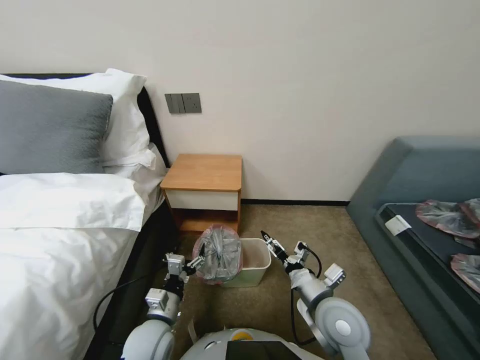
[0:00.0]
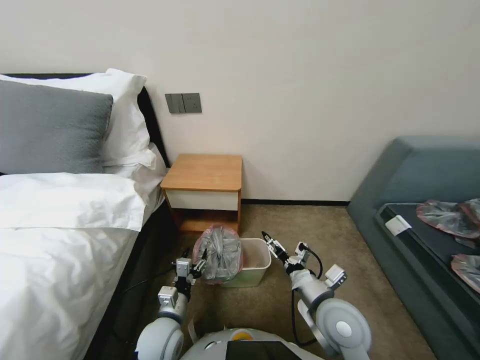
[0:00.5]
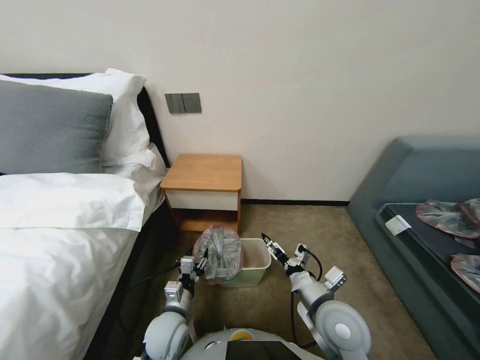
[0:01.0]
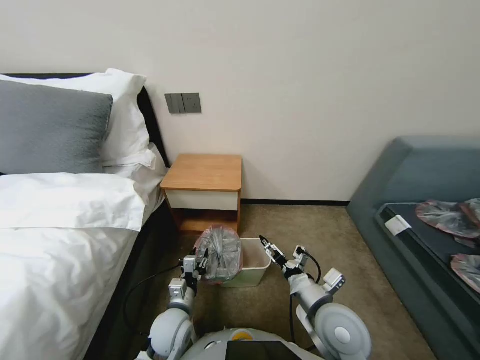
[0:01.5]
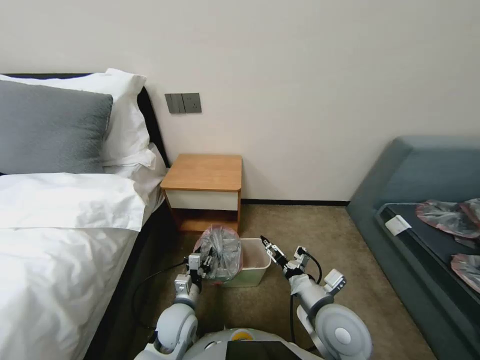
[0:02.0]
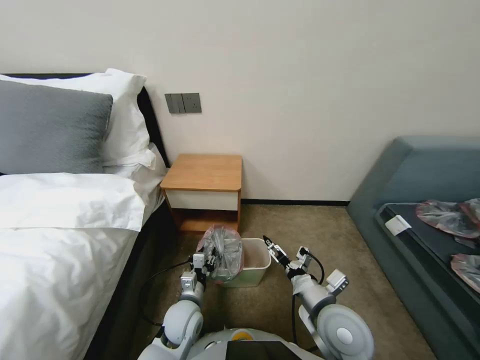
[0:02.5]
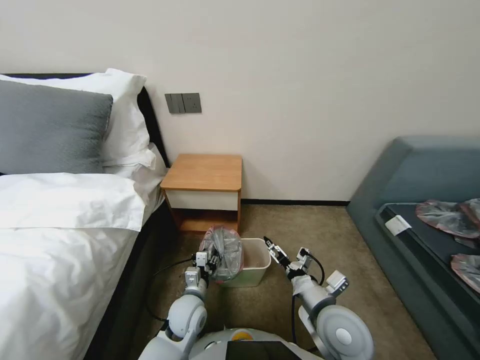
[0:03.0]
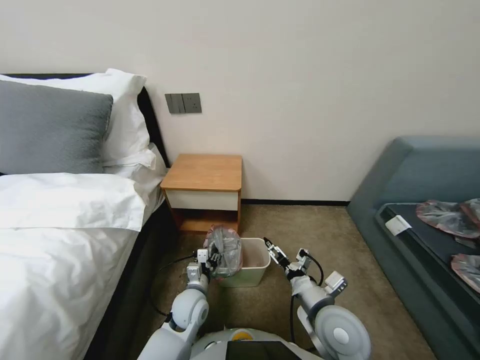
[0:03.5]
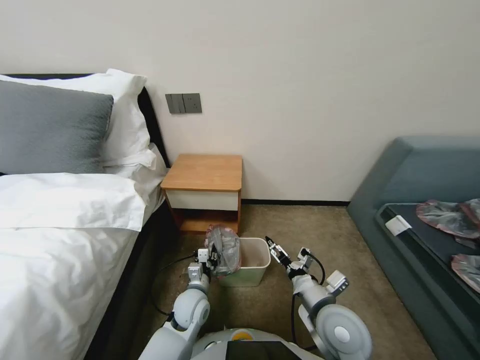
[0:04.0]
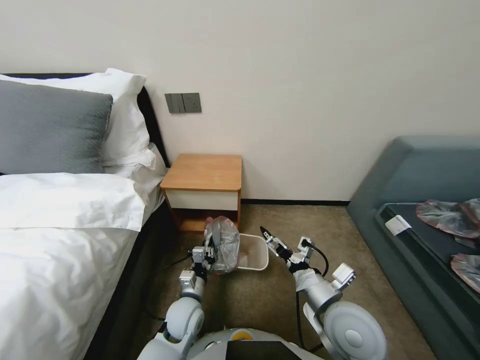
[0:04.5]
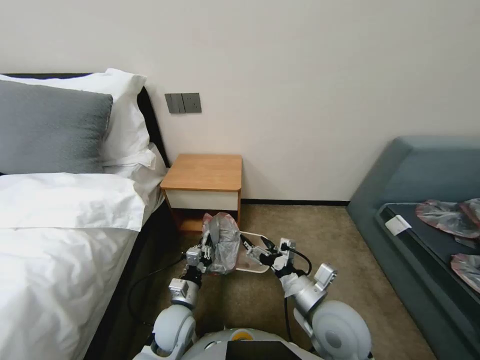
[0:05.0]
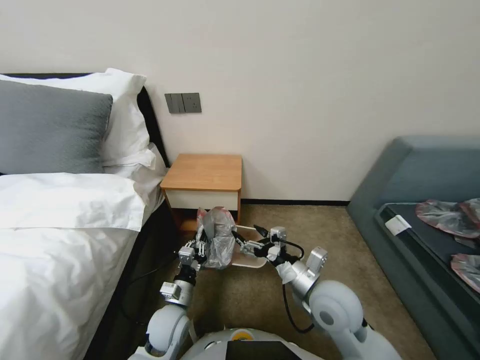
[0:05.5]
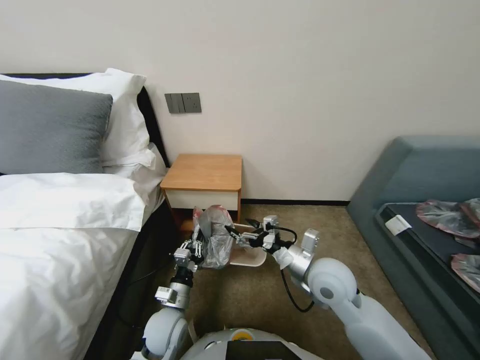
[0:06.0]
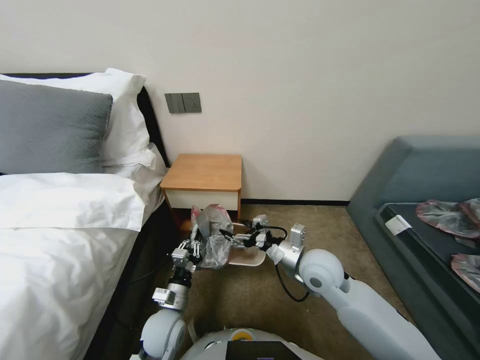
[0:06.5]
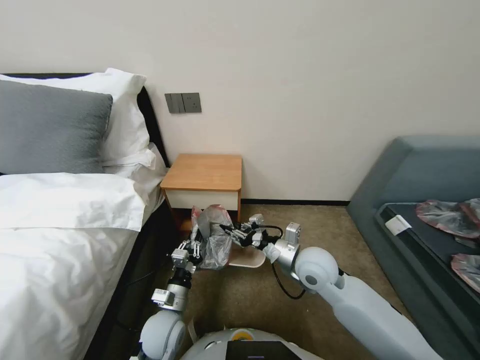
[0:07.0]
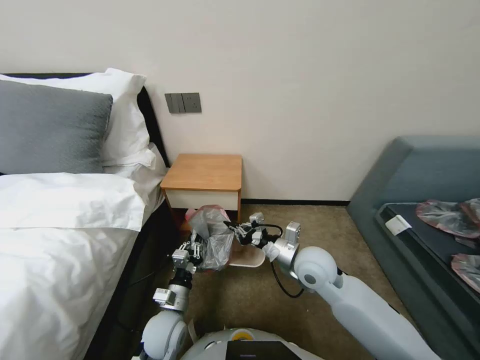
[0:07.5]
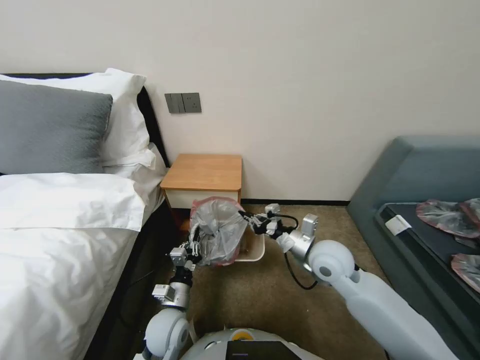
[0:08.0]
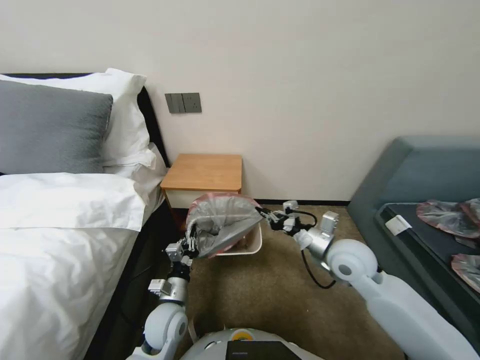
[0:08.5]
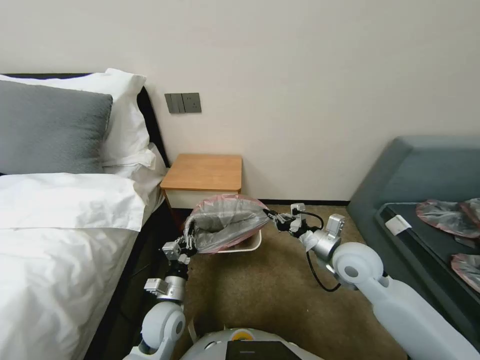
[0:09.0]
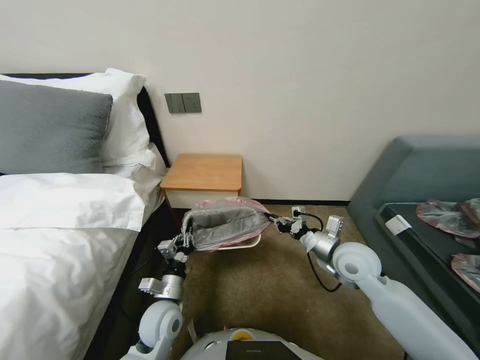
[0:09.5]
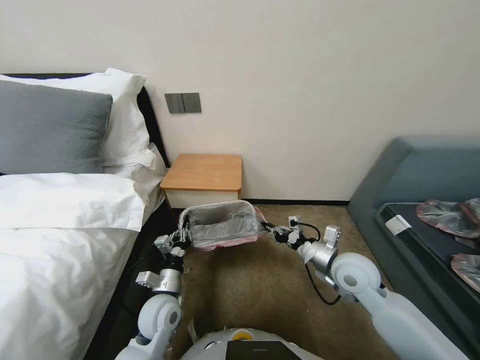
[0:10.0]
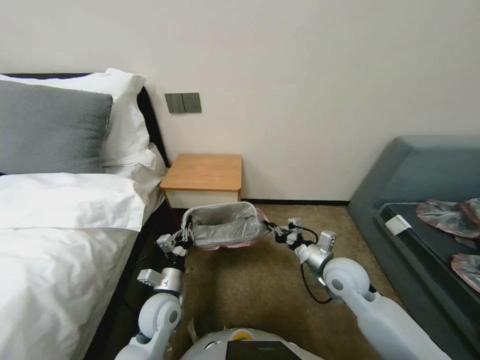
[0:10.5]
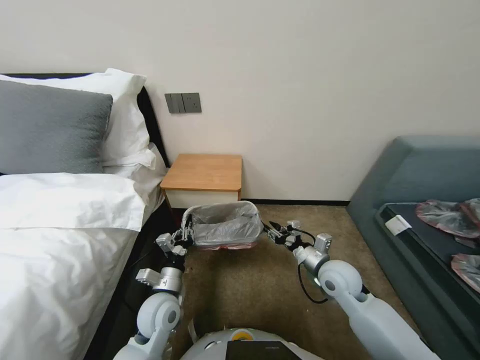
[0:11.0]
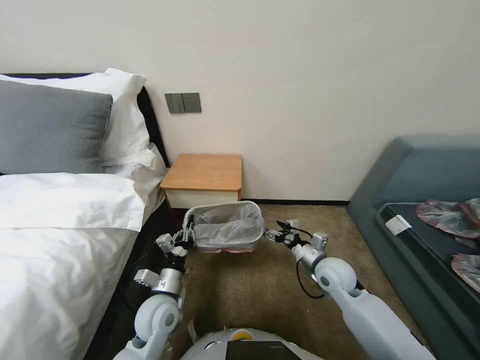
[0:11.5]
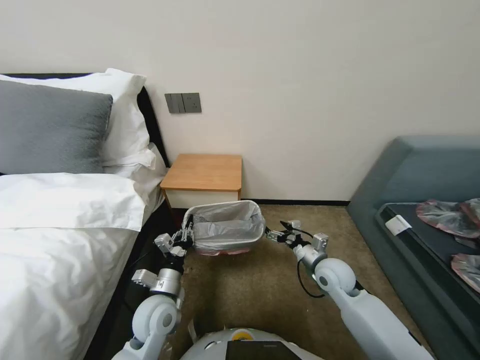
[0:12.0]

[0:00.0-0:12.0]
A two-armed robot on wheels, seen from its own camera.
Task of the whole recording: Pick up the garbage bag from the table and place it over the trash can.
0:00.0 to 0:02.0: The left gripper travels downward by approximately 5 cm, and closes.
0:02.0 to 0:04.0: The left gripper ends up about 5 cm from where it was.
0:04.0 to 0:06.0: The right gripper goes approximately 10 cm forward. The left gripper travels backward and to the left by about 5 cm.
0:06.0 to 0:08.0: The right gripper is displaced forward by roughly 5 cm, and closes up.
0:08.0 to 0:10.0: The right gripper goes approximately 5 cm to the right.
0:10.0 to 0:12.0: The right gripper travels downward by about 10 cm, and opens up.

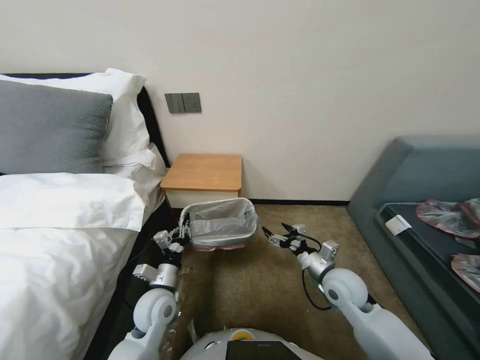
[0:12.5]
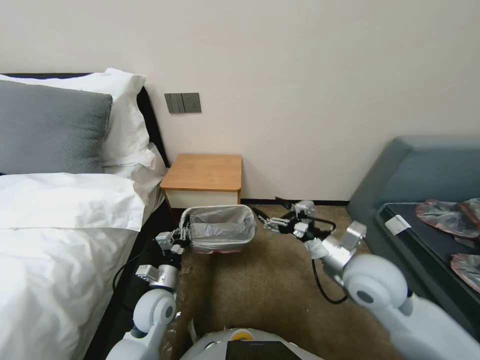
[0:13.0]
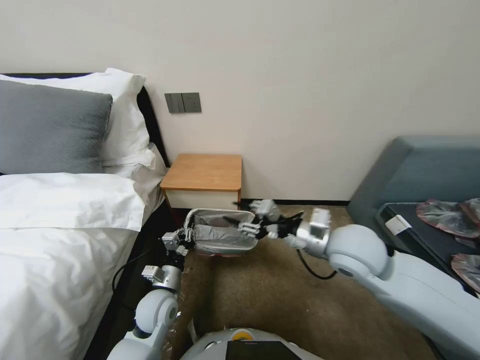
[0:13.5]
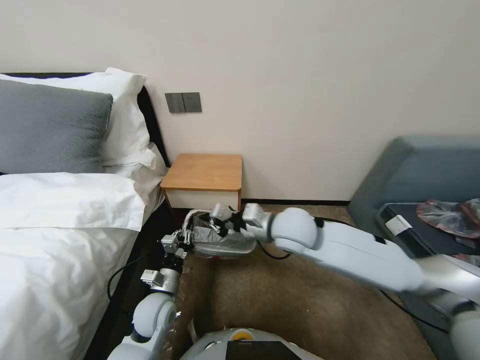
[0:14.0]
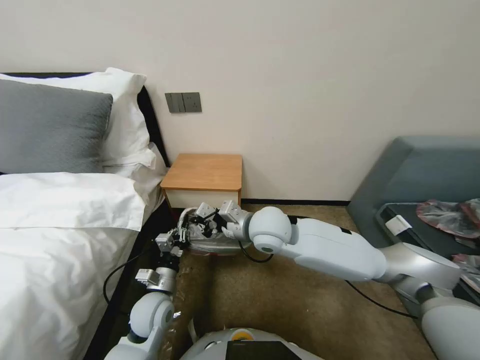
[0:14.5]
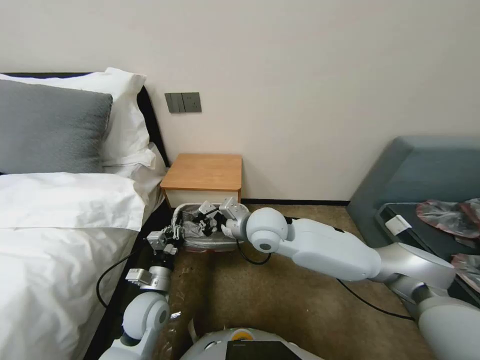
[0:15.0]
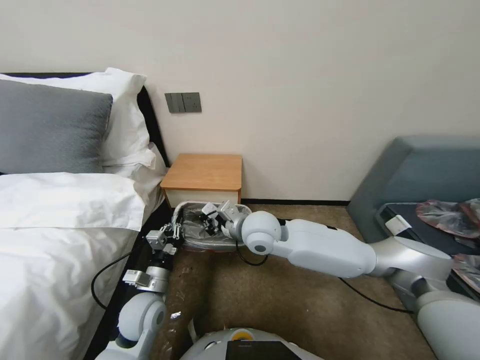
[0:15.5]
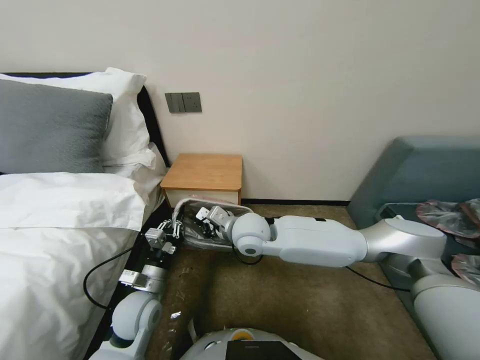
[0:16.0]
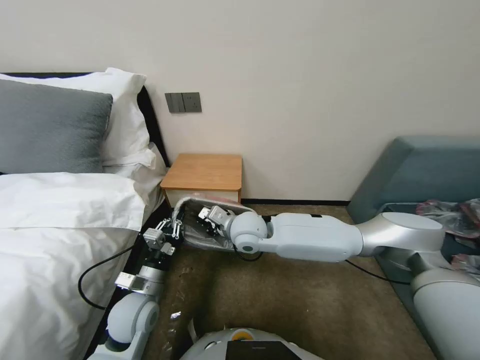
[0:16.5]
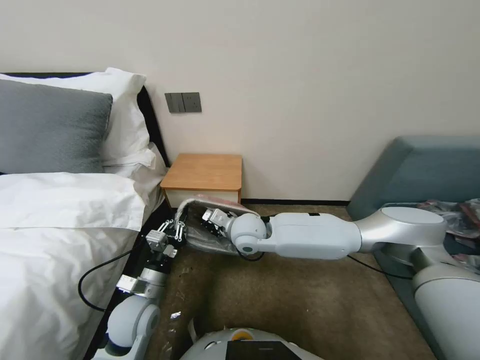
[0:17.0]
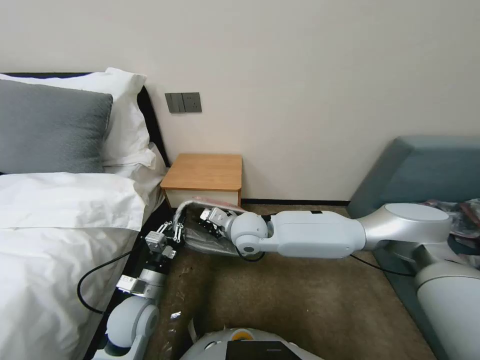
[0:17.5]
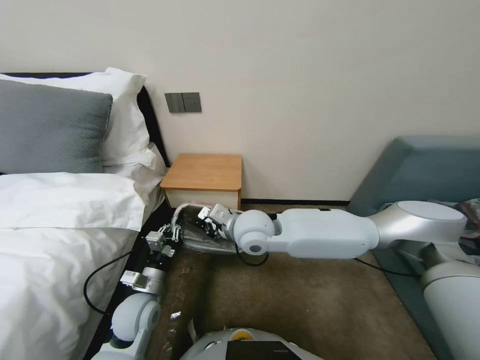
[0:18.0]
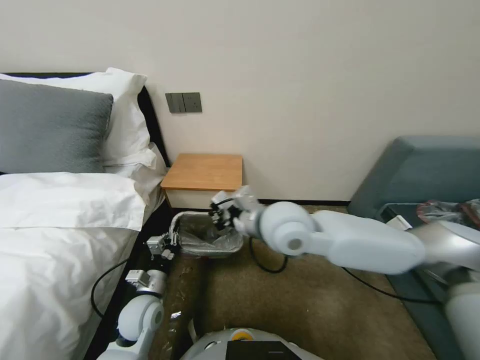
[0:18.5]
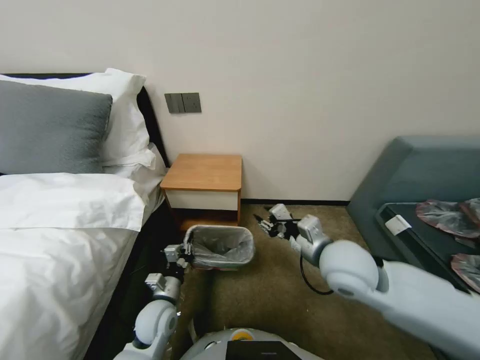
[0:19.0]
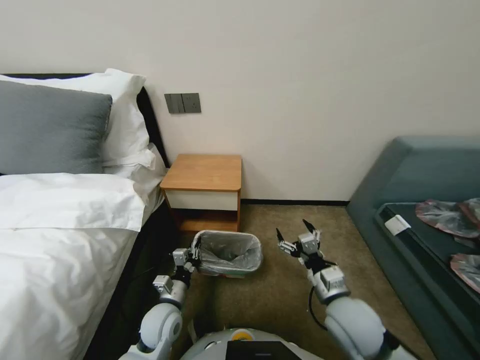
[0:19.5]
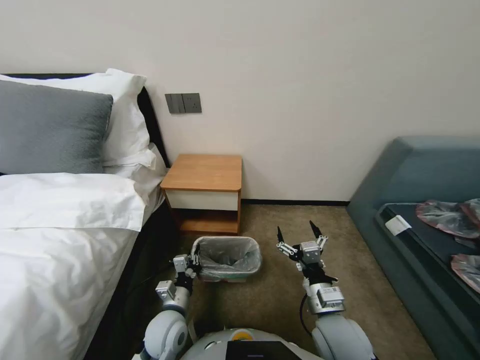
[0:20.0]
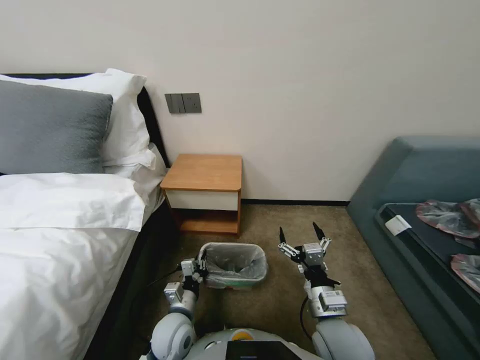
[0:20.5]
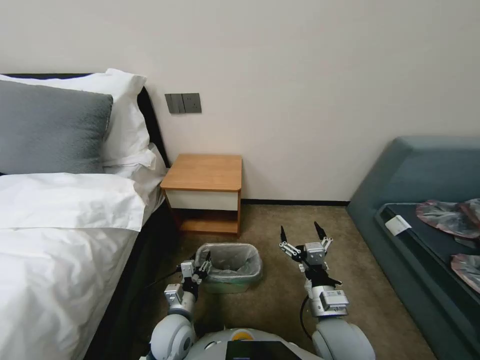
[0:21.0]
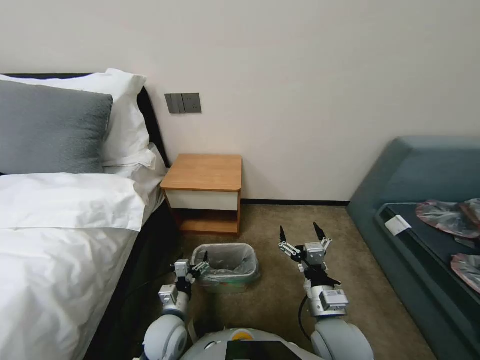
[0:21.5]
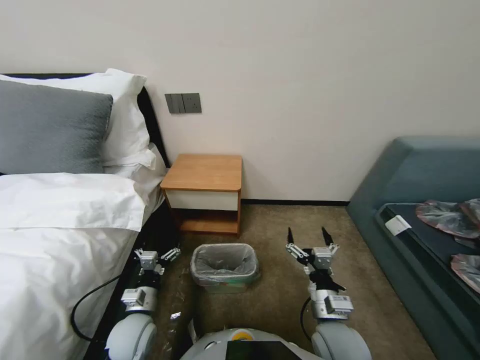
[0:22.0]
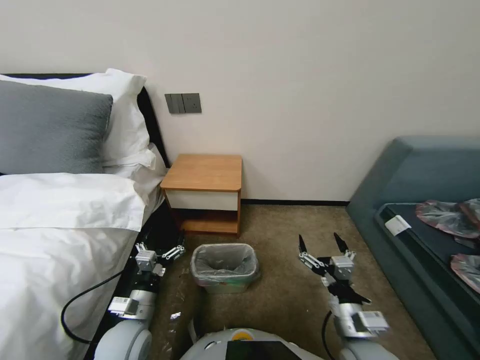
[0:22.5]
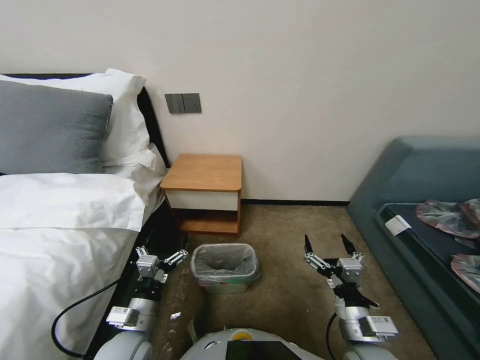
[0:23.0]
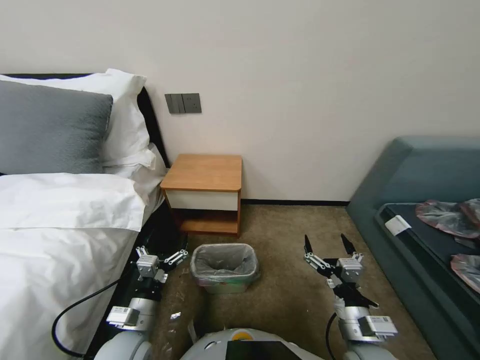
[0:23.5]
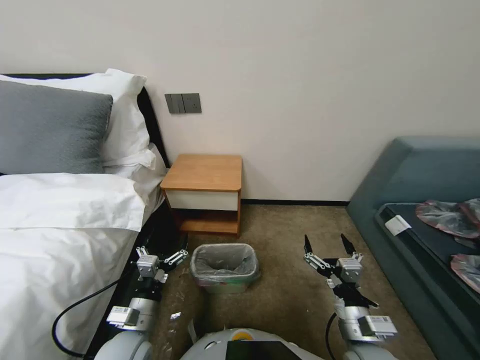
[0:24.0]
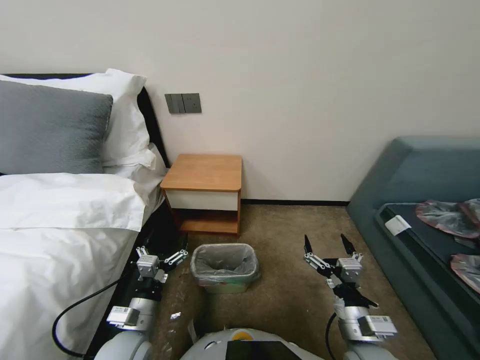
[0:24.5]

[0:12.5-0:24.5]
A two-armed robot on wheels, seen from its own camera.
Task of the whole recording: Pick up the garbage bag from the table and place it over the trash can.
0:12.5 to 0:14.5: The right gripper travels to the left and upward by some 25 cm, and closes.
0:14.5 to 0:16.5: The left gripper shifts by roughly 5 cm; the right gripper is displaced to the left by approximately 5 cm.
0:16.5 to 0:18.5: The right gripper is displaced upward by some 10 cm.
0:18.5 to 0:20.5: The right gripper travels downward, backward and to the right by about 30 cm, and opens its fingers; the left gripper moves to the right, approximately 10 cm.
0:20.5 to 0:22.5: The left gripper shifts some 10 cm to the left, and opens its fingers.
0:22.5 to 0:24.5: The grippers move only a little.

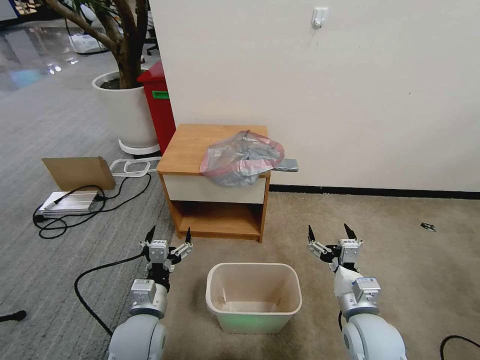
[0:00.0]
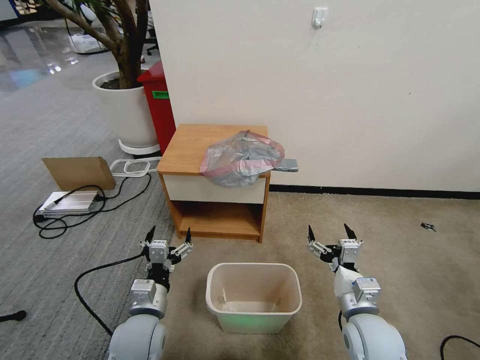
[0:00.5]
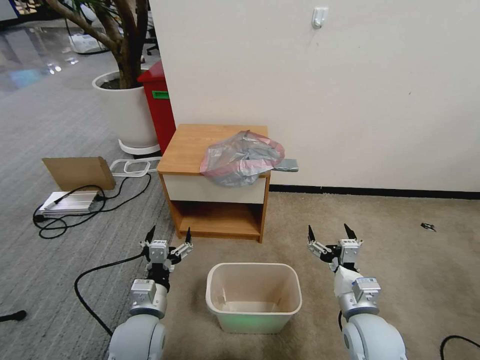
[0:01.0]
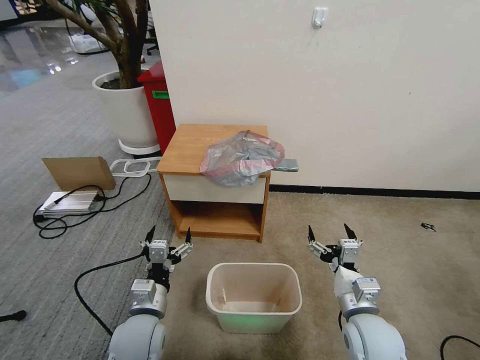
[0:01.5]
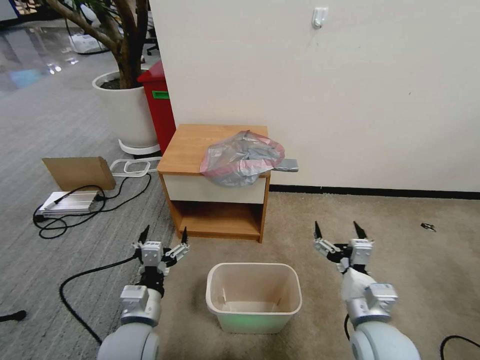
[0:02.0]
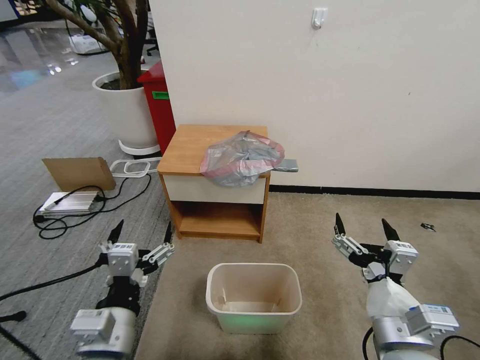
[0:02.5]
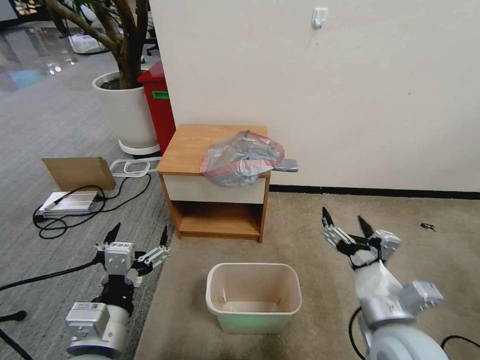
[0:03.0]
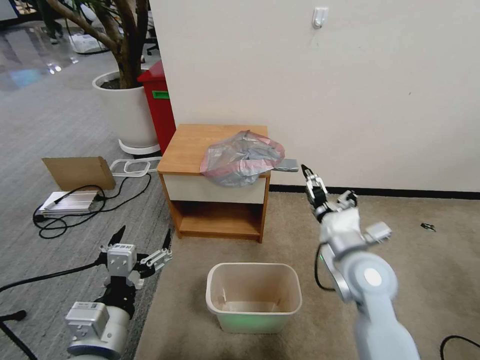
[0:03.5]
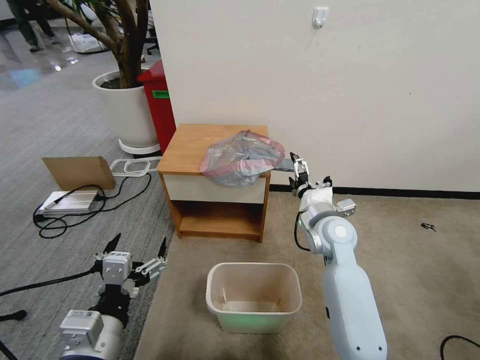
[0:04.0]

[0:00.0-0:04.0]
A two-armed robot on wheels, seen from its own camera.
Task of the whole recording: Pick up the garbage bag from the table and place it over the trash can.
0:02.0 to 0:04.0: The right gripper moves forward, some 20 cm. Meanwhile the left gripper shifts some 15 cm upward and backward.
